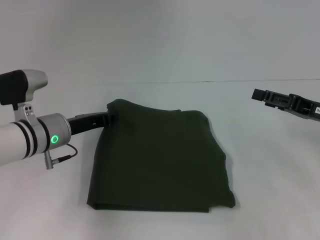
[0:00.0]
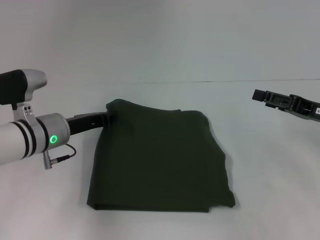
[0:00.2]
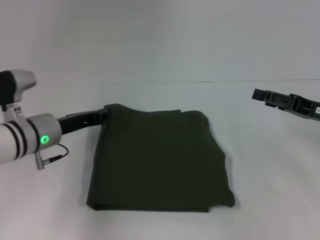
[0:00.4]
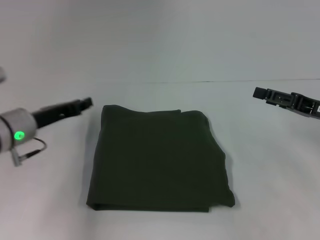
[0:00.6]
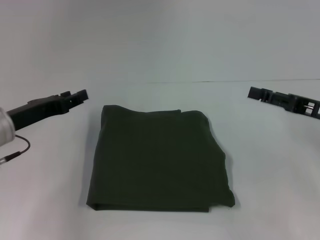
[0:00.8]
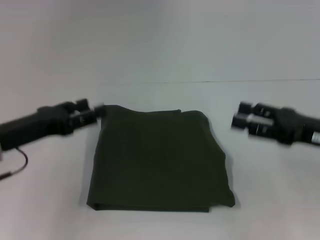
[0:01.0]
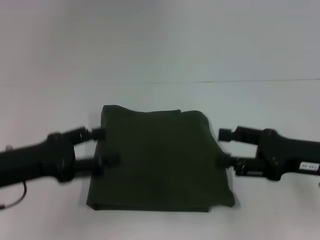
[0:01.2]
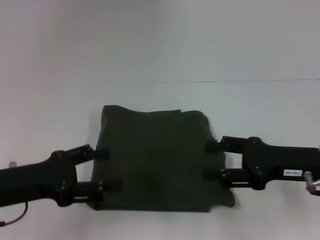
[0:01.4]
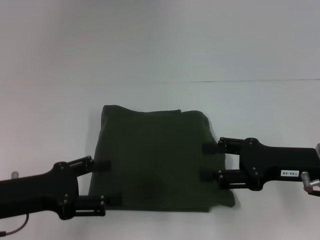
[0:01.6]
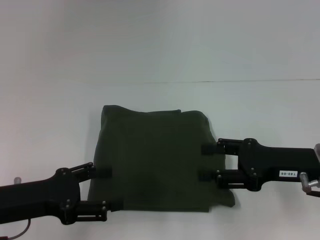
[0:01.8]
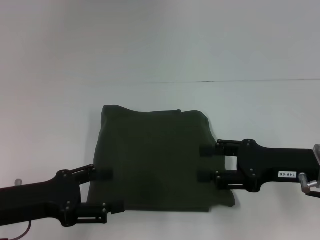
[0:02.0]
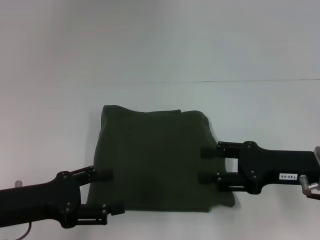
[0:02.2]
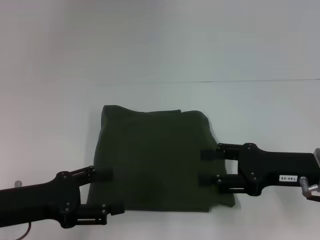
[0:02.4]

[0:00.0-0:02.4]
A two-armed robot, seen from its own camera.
0:00.0 to 0:01.2: The left gripper goes some 15 cm backward, to the left and upward, and opens up; the right gripper is displaced backward by some 5 cm.
0:01.2 to 0:02.4: The grippers make only small movements.

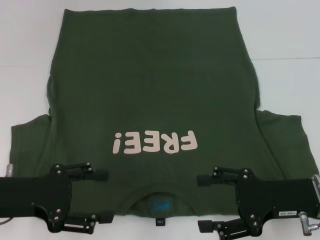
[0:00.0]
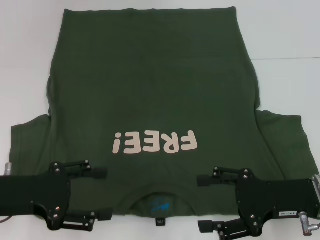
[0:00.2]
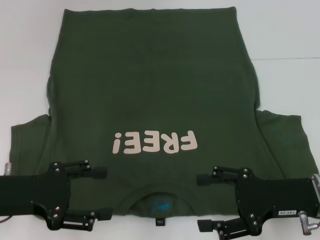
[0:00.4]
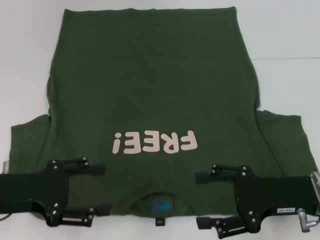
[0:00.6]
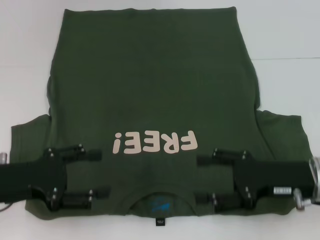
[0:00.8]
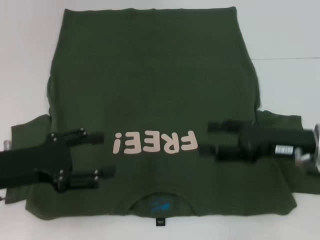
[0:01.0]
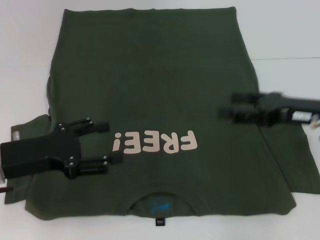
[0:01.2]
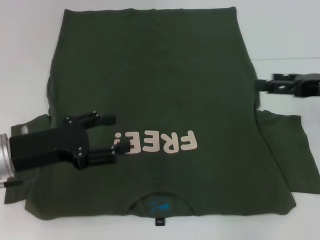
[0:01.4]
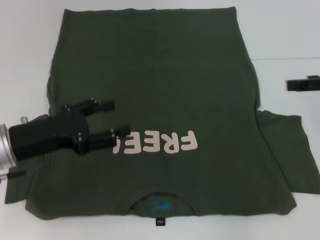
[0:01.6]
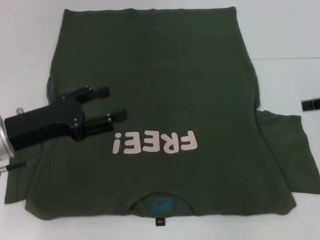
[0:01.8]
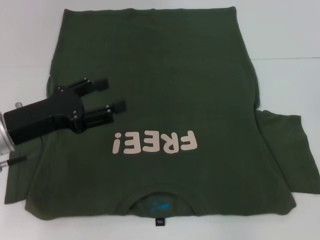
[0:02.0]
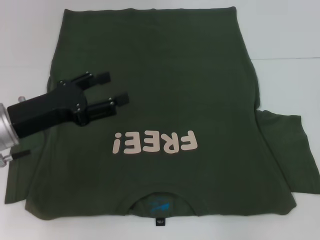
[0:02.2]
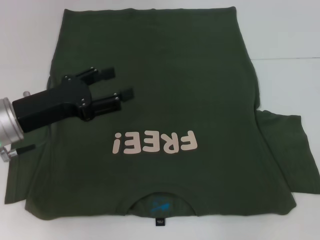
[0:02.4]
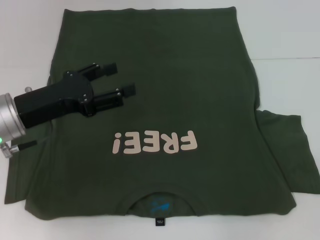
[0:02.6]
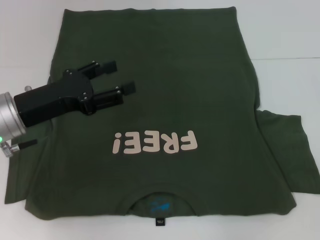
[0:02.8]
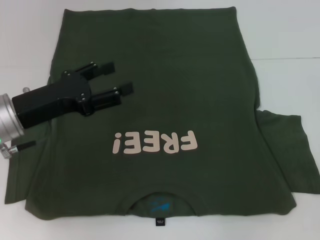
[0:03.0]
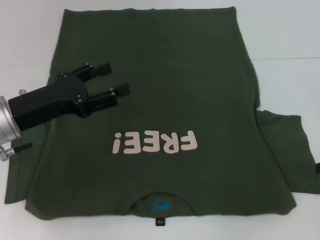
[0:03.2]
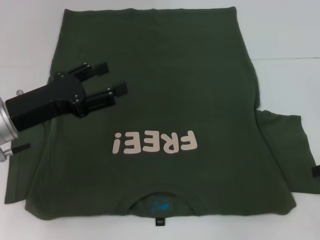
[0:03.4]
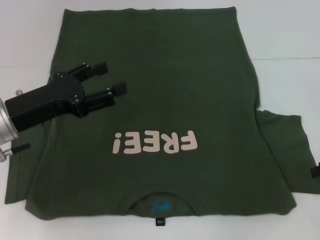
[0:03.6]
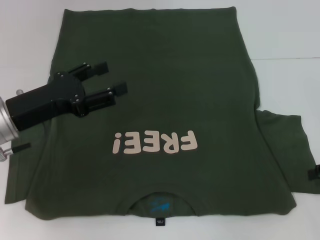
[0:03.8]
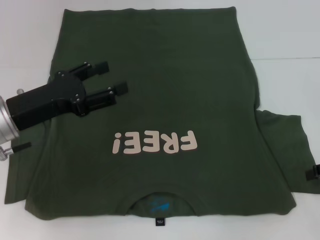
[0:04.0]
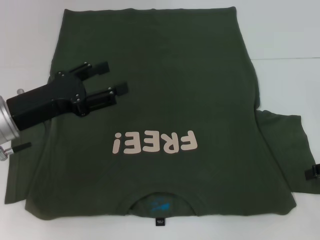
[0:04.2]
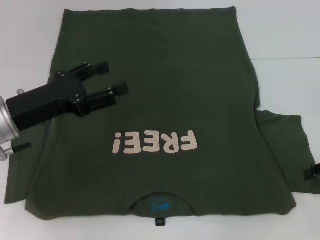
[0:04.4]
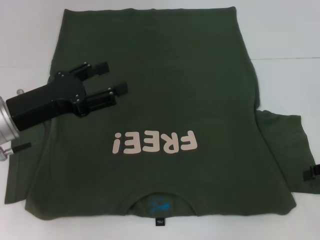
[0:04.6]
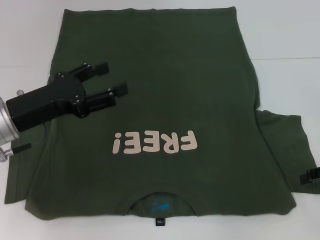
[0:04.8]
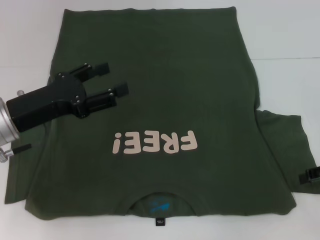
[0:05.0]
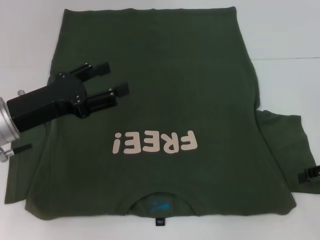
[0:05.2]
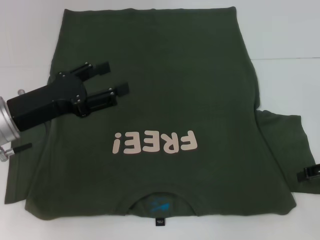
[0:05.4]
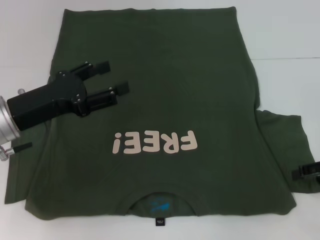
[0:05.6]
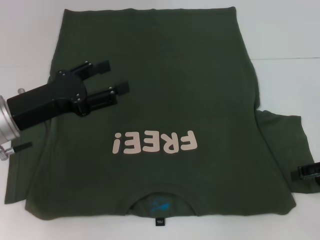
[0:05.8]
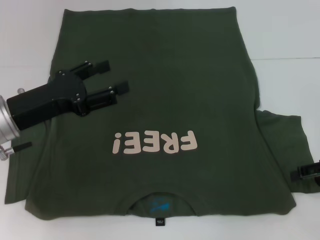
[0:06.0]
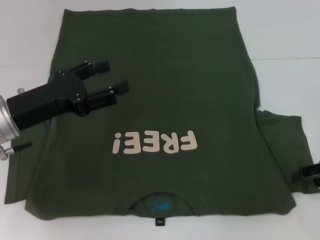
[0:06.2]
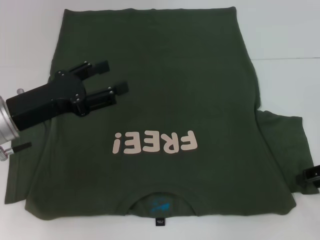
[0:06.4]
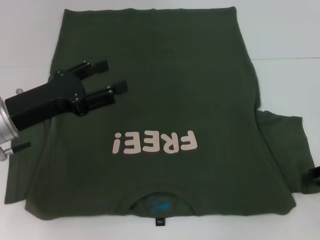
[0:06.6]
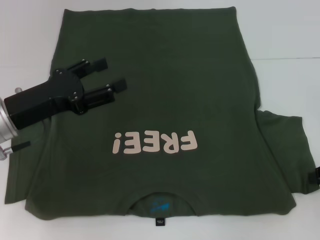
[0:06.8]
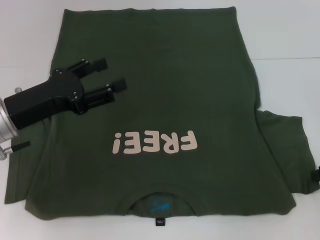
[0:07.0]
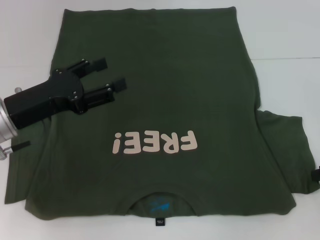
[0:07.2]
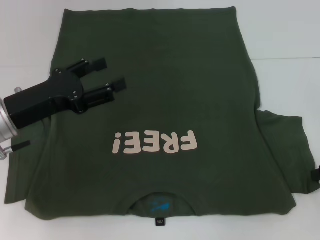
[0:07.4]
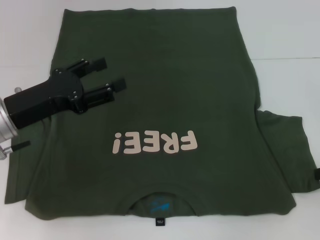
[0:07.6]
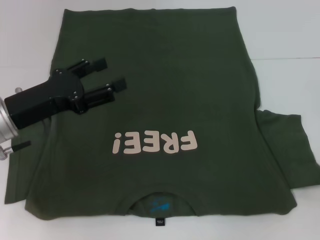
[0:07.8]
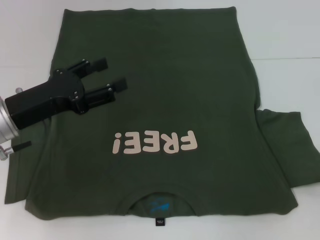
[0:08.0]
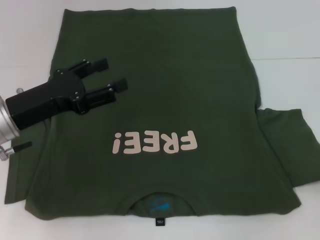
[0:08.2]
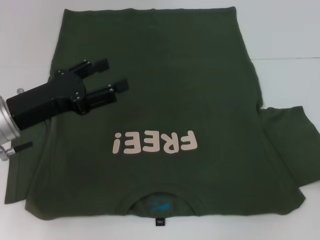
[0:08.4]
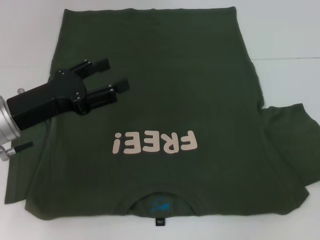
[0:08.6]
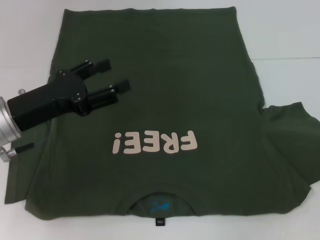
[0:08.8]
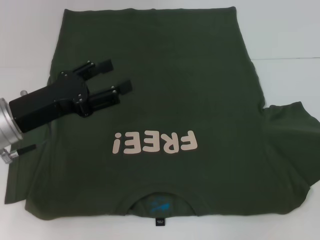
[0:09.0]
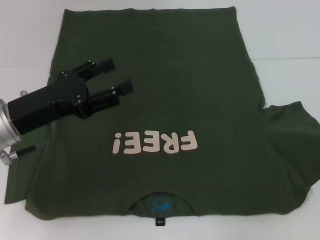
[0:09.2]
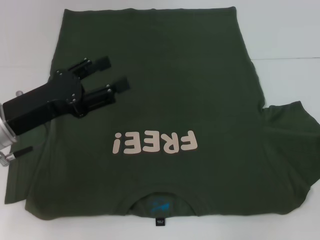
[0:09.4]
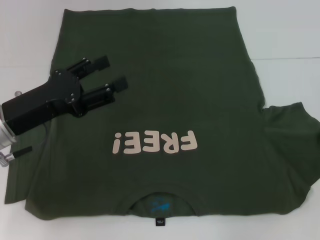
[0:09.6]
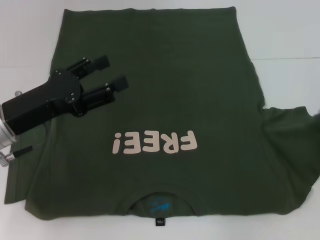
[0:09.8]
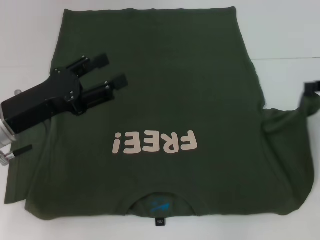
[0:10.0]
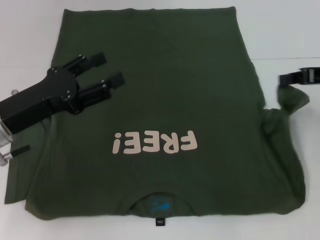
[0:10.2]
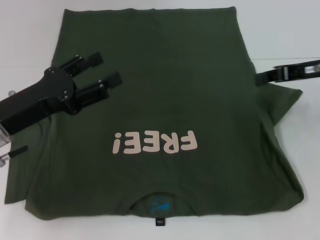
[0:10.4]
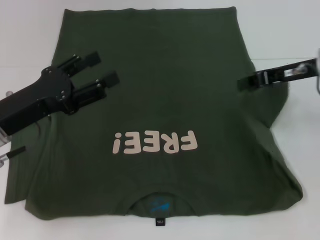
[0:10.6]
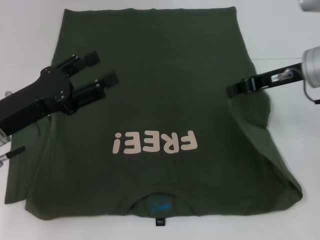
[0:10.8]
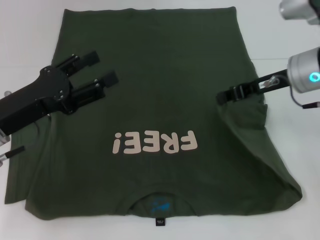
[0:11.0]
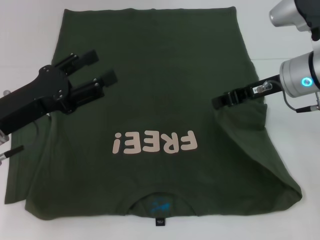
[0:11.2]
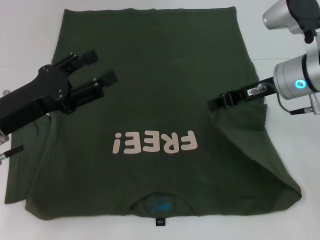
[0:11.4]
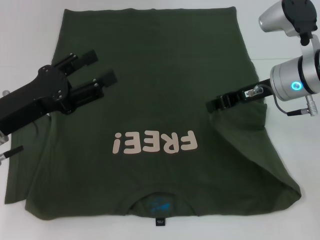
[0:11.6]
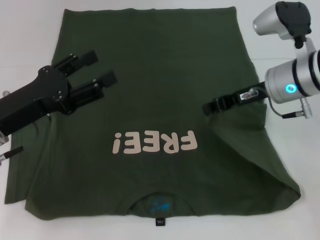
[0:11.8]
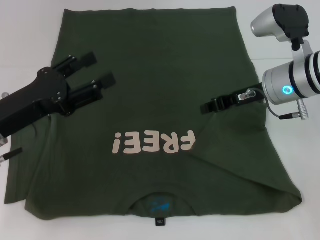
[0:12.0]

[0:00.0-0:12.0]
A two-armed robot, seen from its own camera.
Step, 0:00.0 to 0:12.0: Fold the bottom right sleeve with your right hand.
0:00.0 to 0:01.6: The right gripper heads upward, to the right and forward, covering roughly 20 cm; the left gripper shifts by roughly 5 cm.
0:01.6 to 0:03.0: The right gripper shifts by roughly 10 cm.
0:03.0 to 0:04.4: The grippers make only small movements.
0:06.0 to 0:07.6: The right gripper closes up.
0:07.6 to 0:09.0: The right gripper is displaced to the right by roughly 5 cm.
0:09.0 to 0:10.4: The right gripper heads to the left and forward, covering about 15 cm.
0:10.4 to 0:12.0: The right gripper shifts approximately 10 cm to the left.

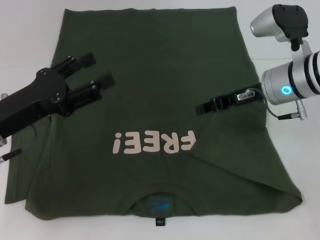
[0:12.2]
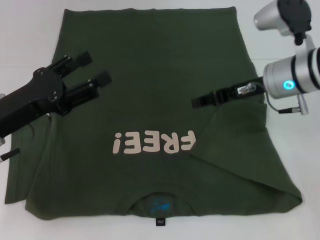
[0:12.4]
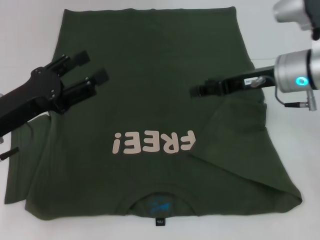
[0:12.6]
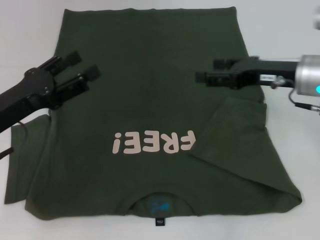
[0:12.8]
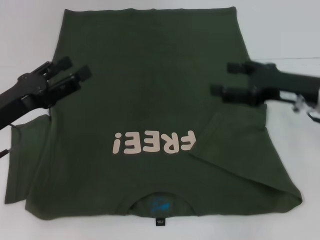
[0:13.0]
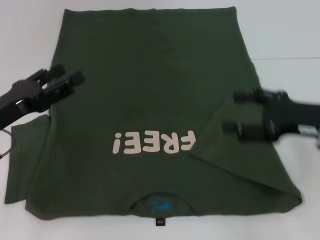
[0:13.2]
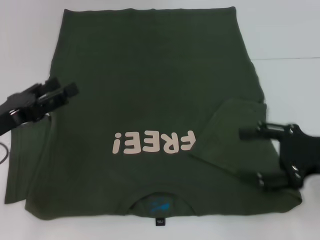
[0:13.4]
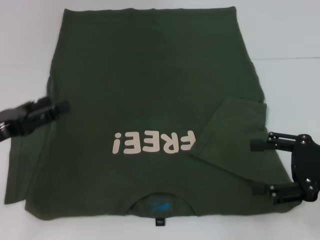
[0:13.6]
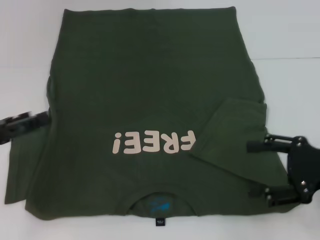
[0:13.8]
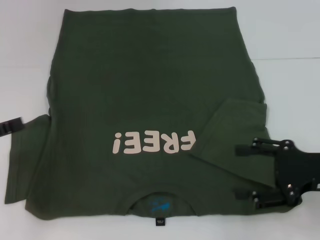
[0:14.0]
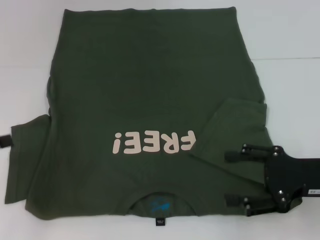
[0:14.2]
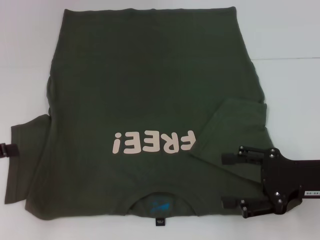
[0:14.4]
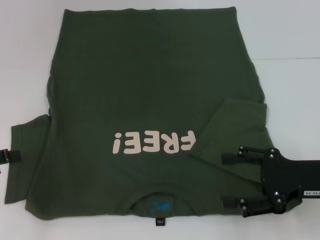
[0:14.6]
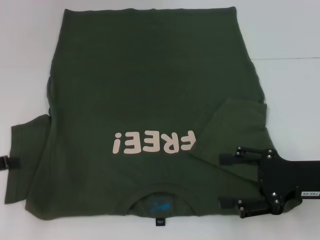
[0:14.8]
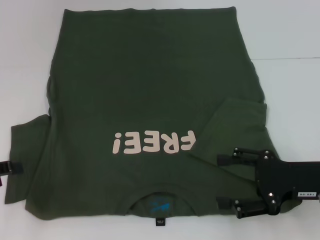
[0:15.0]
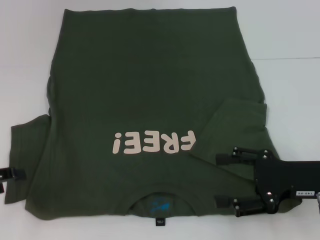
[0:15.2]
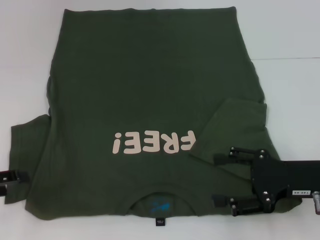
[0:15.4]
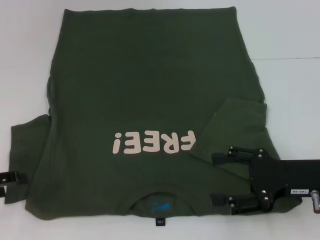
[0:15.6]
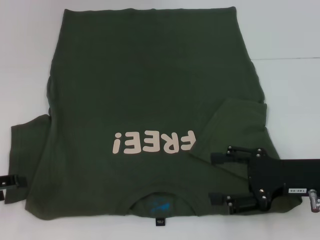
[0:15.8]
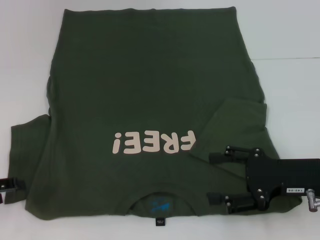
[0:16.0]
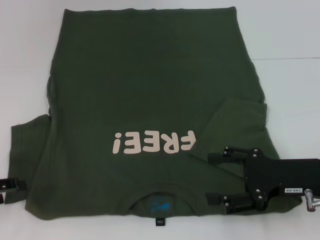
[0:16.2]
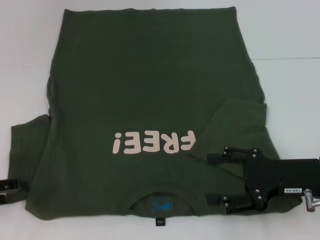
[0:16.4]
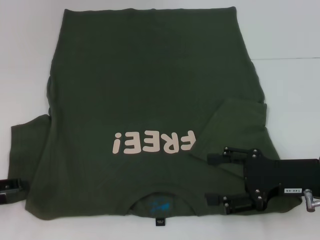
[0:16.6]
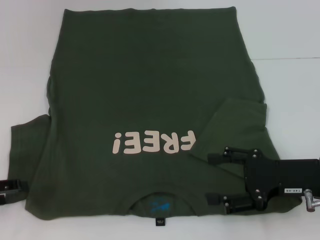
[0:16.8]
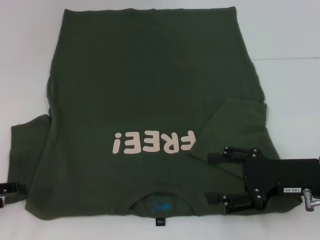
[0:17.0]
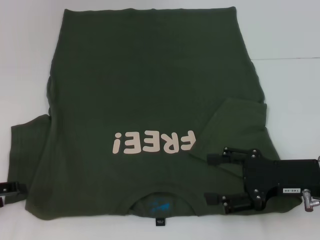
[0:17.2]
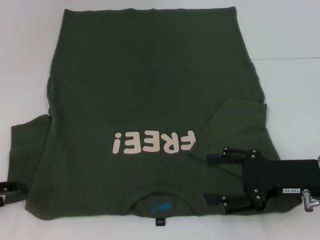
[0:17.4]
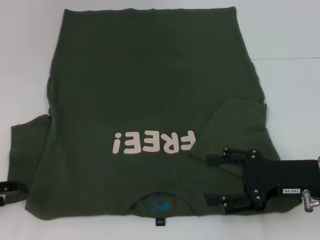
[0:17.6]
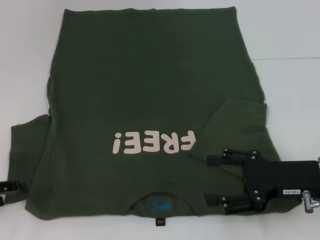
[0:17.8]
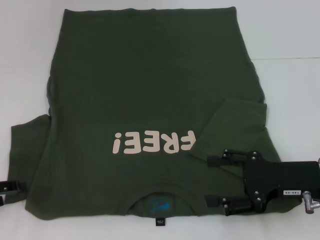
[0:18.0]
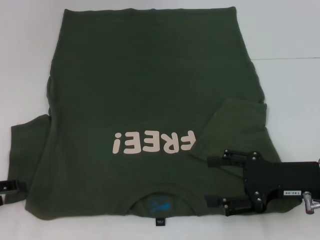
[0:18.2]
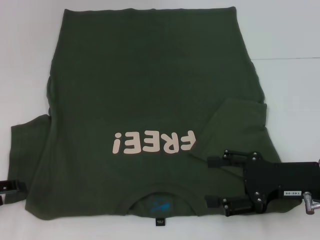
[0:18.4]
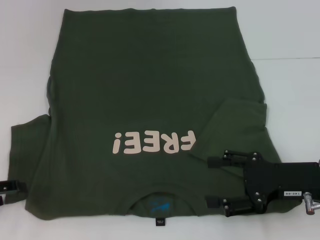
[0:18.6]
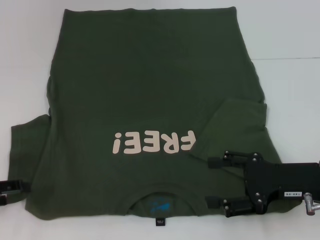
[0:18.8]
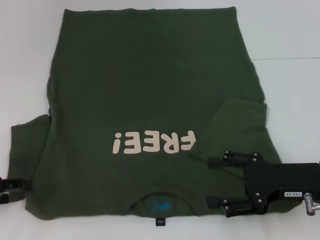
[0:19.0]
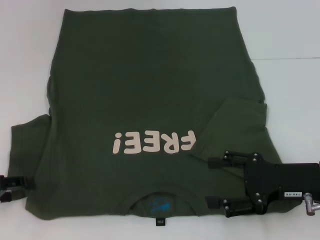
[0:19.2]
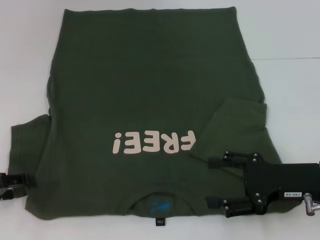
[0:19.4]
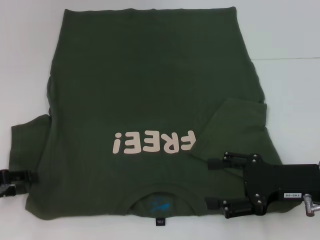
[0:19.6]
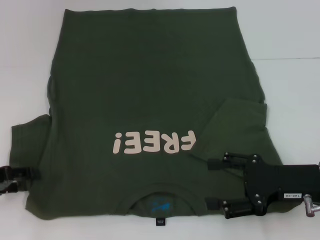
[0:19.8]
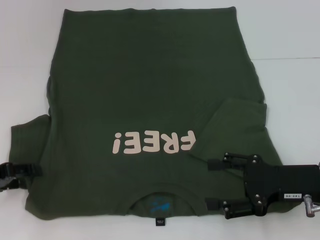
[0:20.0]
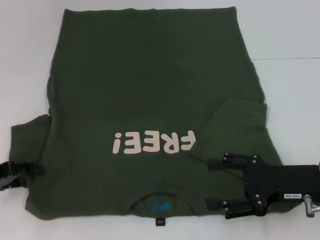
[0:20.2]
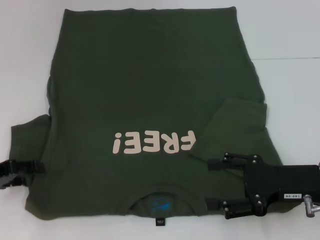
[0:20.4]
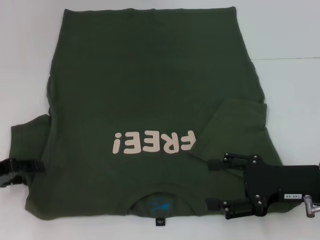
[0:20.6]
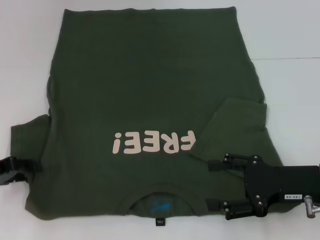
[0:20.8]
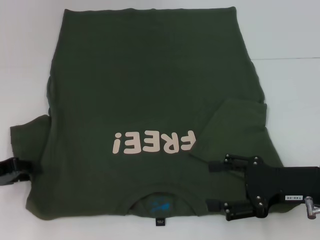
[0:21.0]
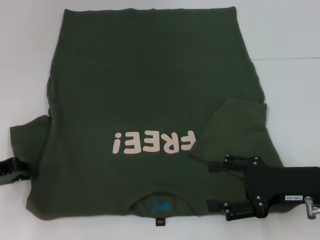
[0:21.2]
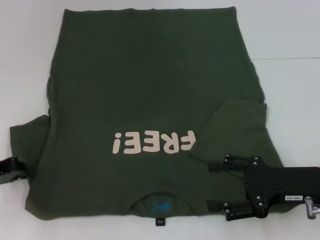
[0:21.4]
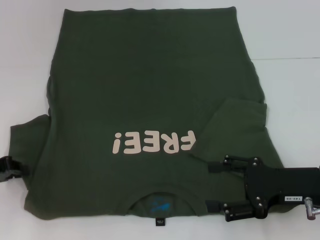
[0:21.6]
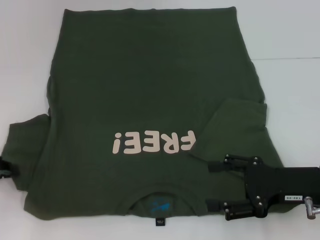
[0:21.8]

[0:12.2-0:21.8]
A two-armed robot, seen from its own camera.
0:12.2 to 0:13.8: The left gripper moves to the left, approximately 10 cm, while the right gripper travels backward and to the right by some 20 cm, and opens its fingers.
0:13.8 to 0:15.4: The right gripper ends up approximately 5 cm from where it was.
0:15.4 to 0:17.0: The grippers make only small movements.
0:17.0 to 0:18.6: Neither gripper changes place.
0:18.6 to 0:20.2: The grippers move only a little.
0:20.2 to 0:21.8: The left gripper closes.
